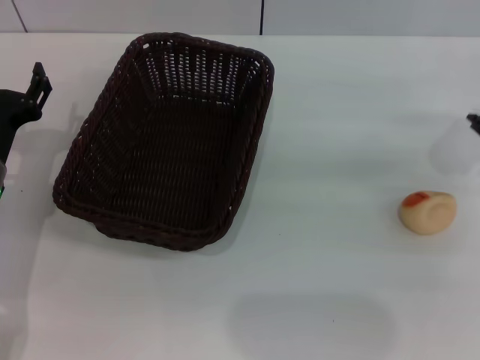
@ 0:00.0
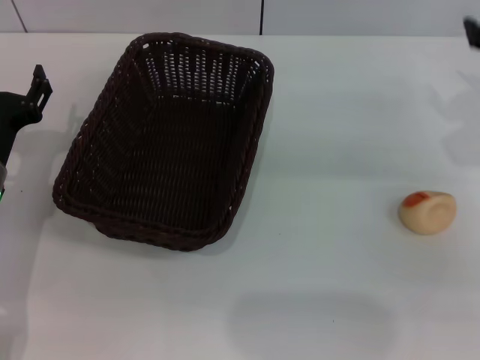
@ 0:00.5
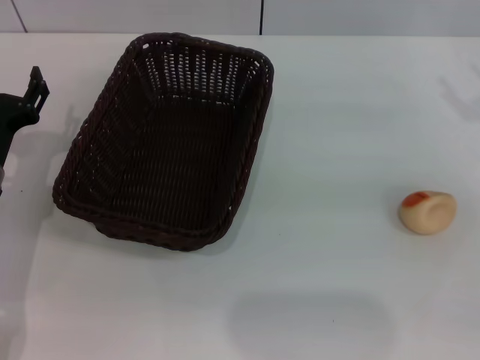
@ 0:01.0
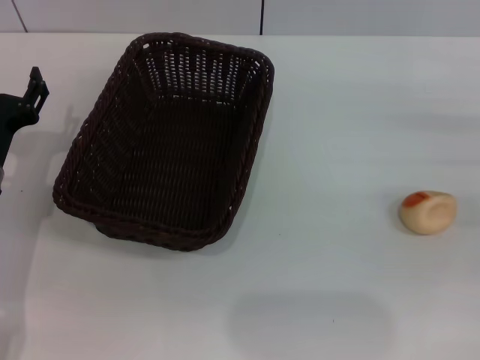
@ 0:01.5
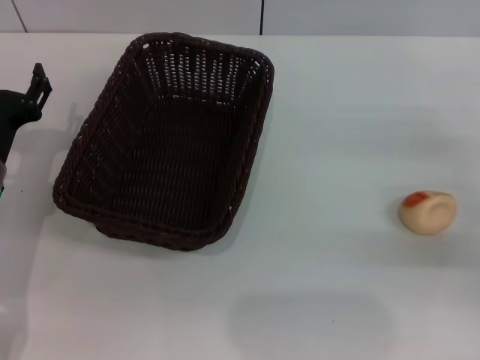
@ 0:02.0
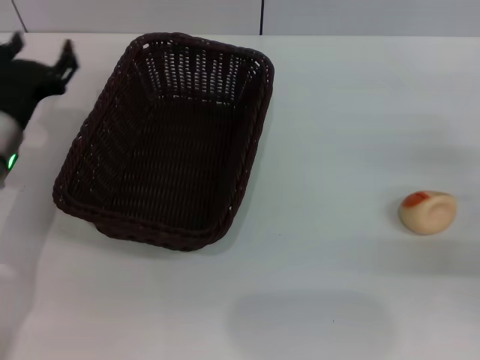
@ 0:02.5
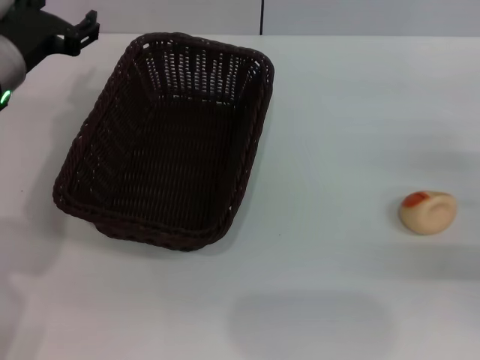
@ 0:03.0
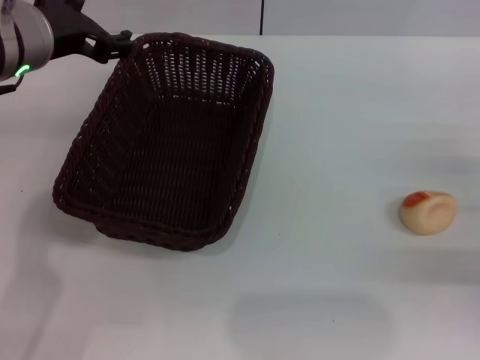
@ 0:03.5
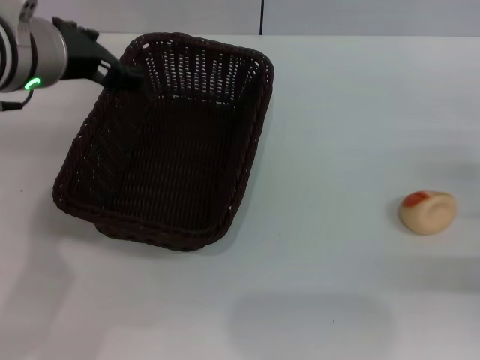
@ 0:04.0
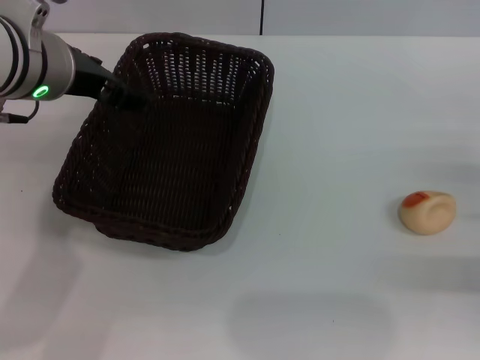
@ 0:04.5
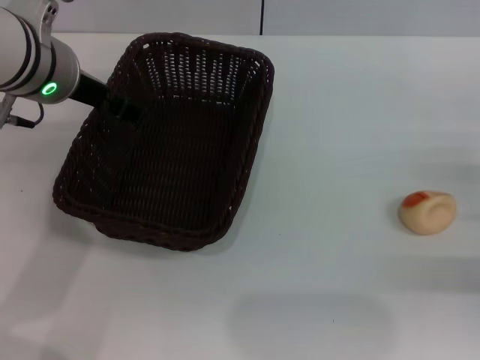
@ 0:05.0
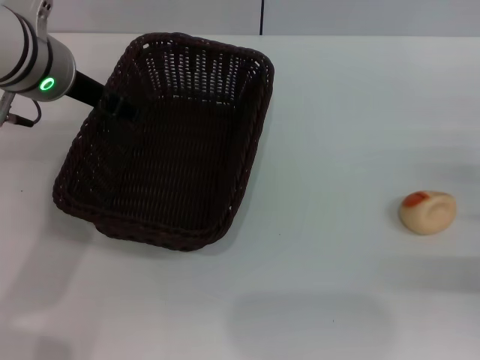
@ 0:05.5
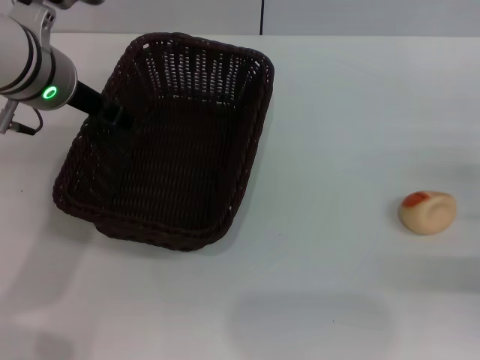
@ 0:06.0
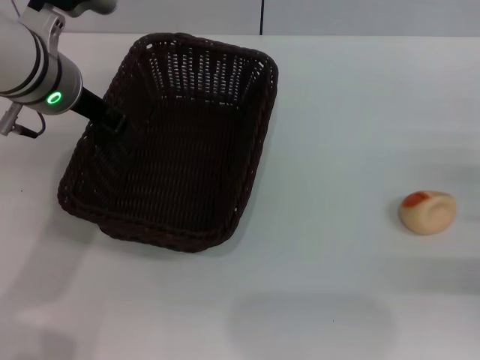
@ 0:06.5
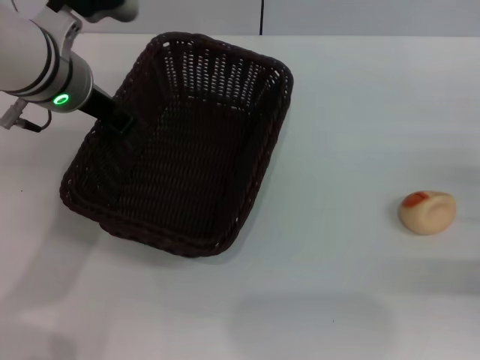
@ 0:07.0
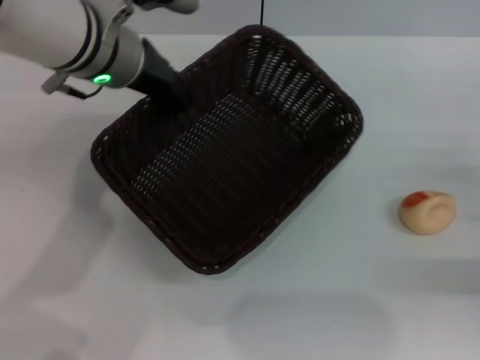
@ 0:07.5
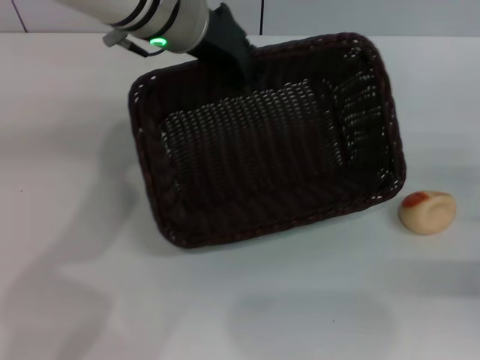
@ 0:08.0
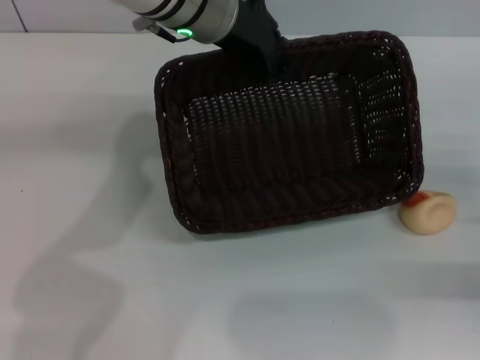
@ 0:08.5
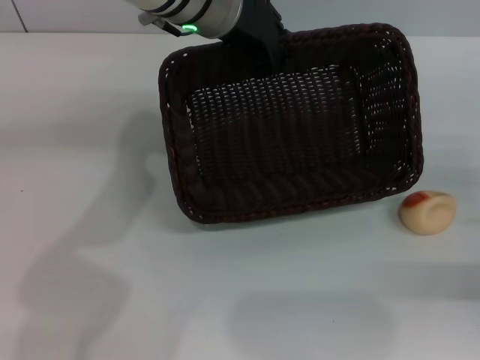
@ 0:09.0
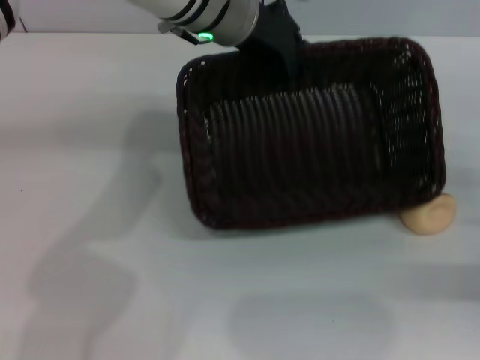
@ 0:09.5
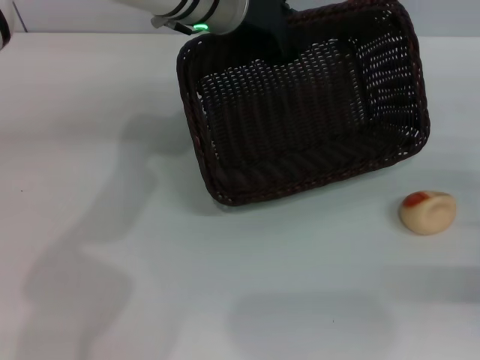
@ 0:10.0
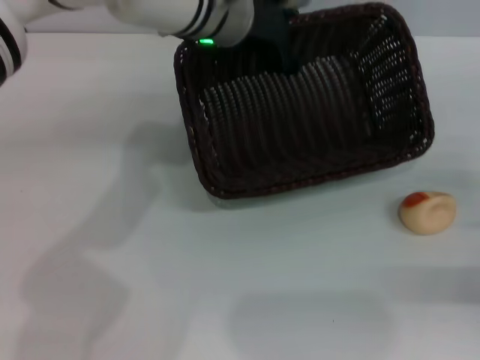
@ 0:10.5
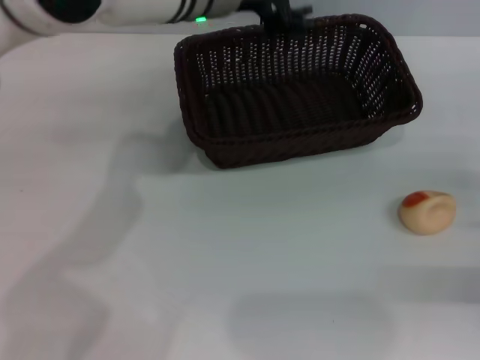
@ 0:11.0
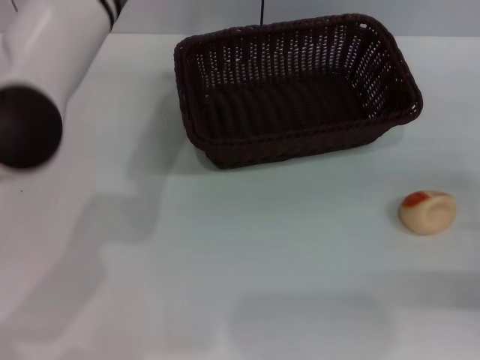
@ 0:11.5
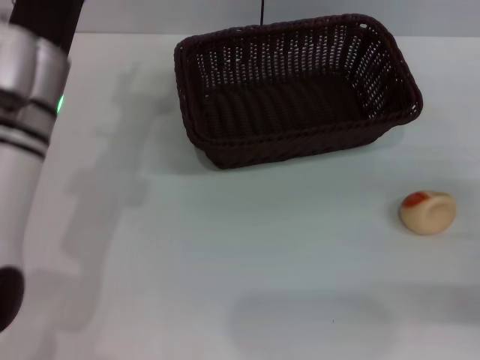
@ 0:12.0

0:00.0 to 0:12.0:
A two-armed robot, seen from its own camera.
Step, 0:00.0 to 0:11.0: Move the basket to the center of view with the left gripper.
0:00.0 to 0:02.0: The right gripper moves backward and downward, roughly 10 cm.
0:02.0 to 0:04.0: The left gripper is displaced upward and to the right by about 20 cm.
0:06.0 to 0:08.0: The left gripper goes about 10 cm to the right, and closes up.
0:10.0 to 0:12.0: The left gripper shifts approximately 20 cm to the left, backward and downward, and opens up.

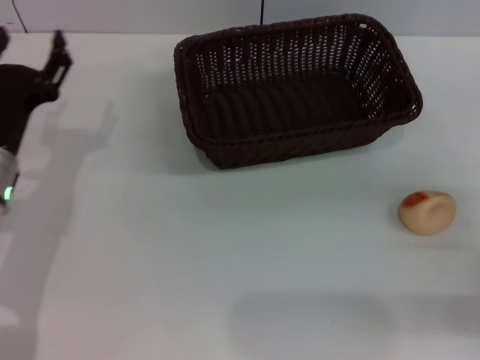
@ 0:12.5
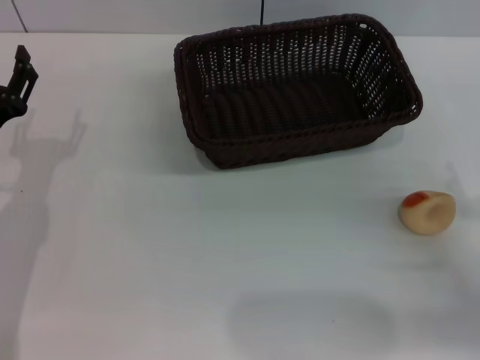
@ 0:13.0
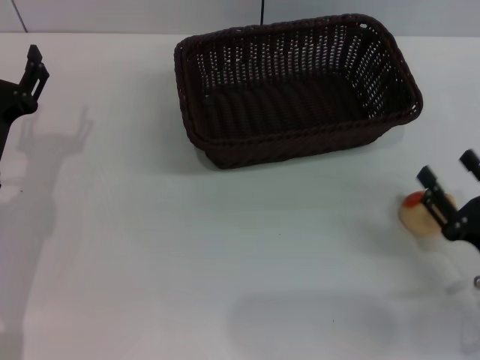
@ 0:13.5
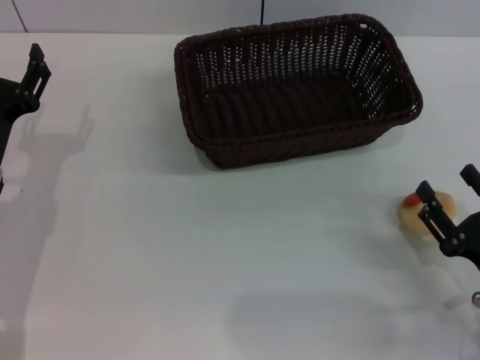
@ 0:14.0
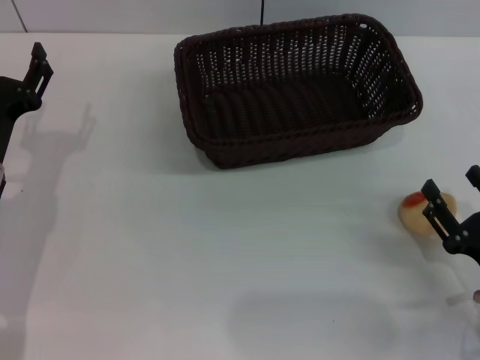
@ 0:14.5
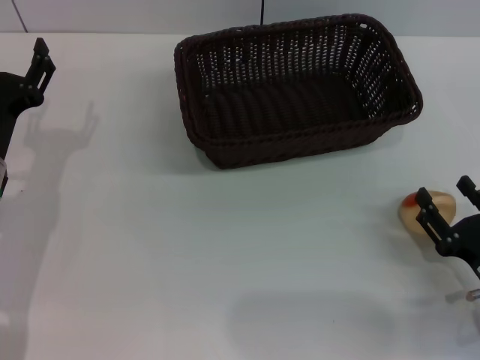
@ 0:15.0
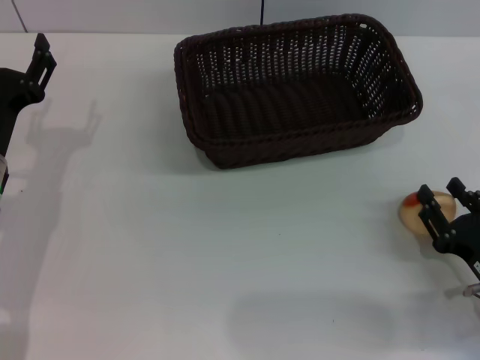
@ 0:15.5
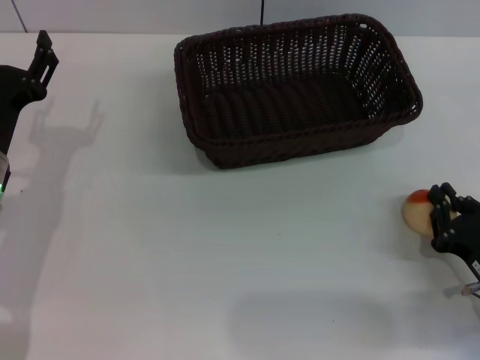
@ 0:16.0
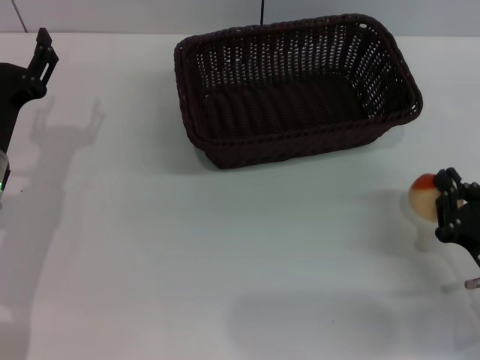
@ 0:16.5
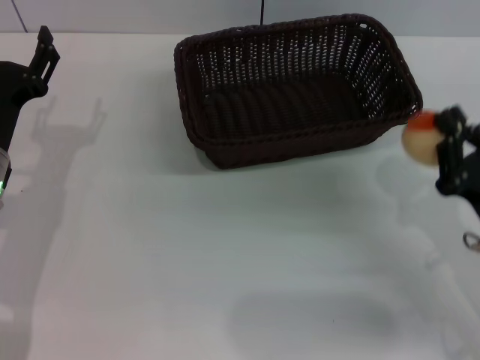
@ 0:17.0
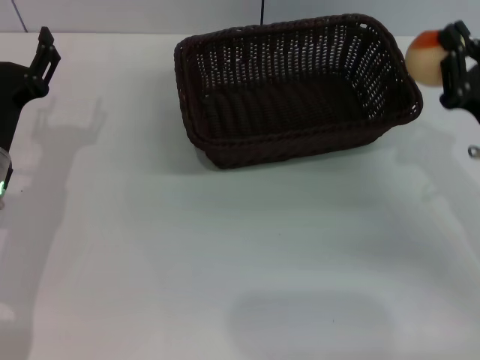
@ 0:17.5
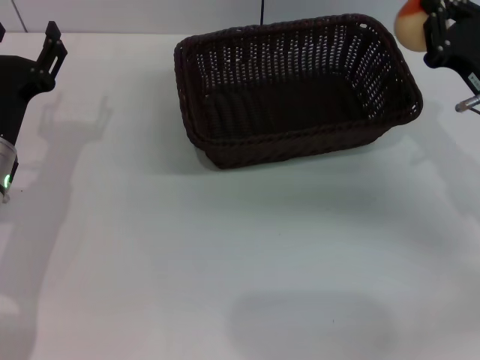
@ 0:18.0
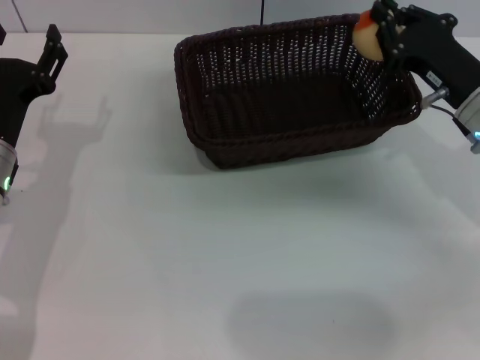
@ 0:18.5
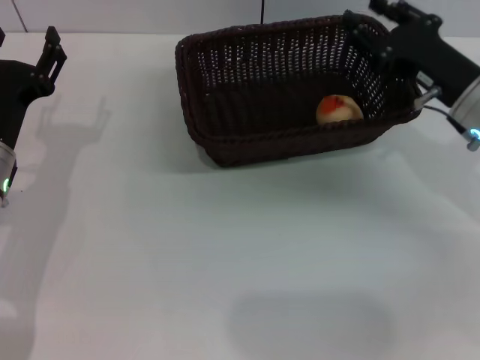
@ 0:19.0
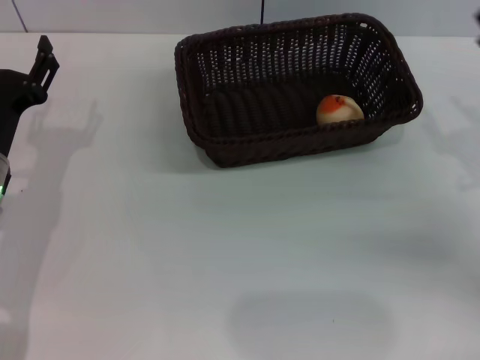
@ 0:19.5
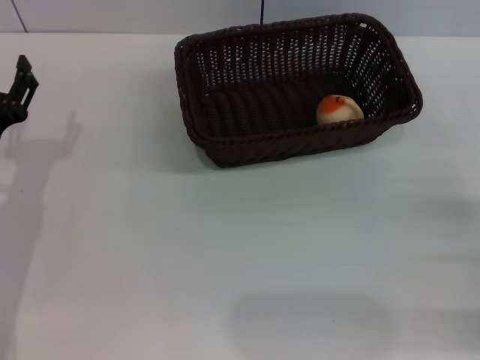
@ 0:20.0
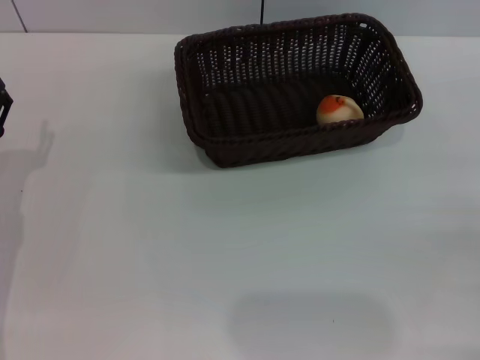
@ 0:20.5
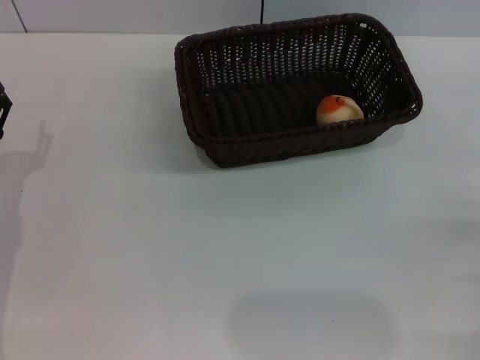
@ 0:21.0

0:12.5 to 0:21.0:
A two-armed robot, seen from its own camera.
Step, 0:12.5 to 0:16.5: Pick up the egg yolk pastry with the right gripper.
Step, 0:17.0 to 0:18.5: Place the egg yolk pastry into the basket with the right gripper.
0:12.5 to 0:14.5: The right gripper shifts roughly 5 cm to the left.
0:14.5 to 0:16.5: The right gripper closes up.
0:16.5 to 0:19.0: The right gripper is displaced forward and upward by roughly 20 cm, and opens its fingers.
0:19.0 to 0:21.0: The left gripper moves roughly 5 cm. Meanwhile the right gripper heads backward and to the right, covering about 20 cm, and opens up.

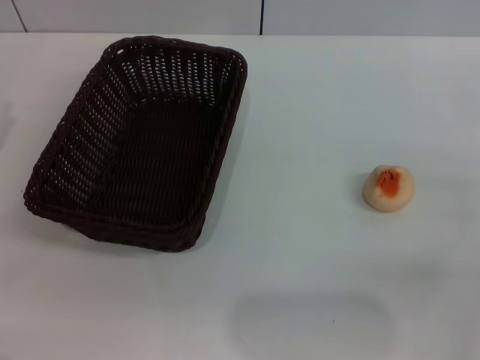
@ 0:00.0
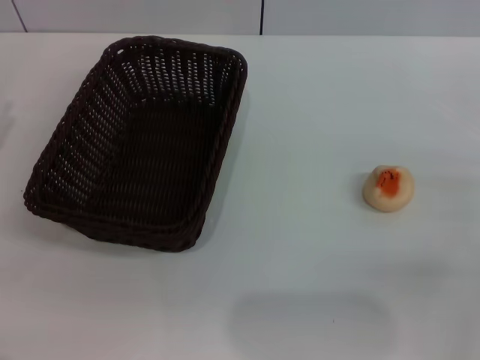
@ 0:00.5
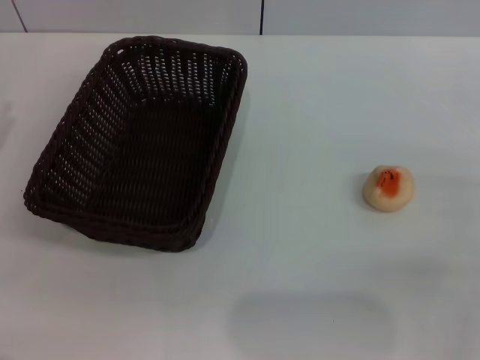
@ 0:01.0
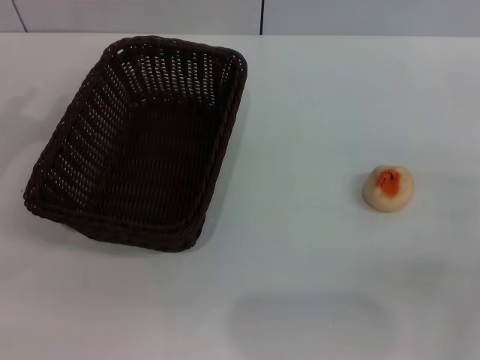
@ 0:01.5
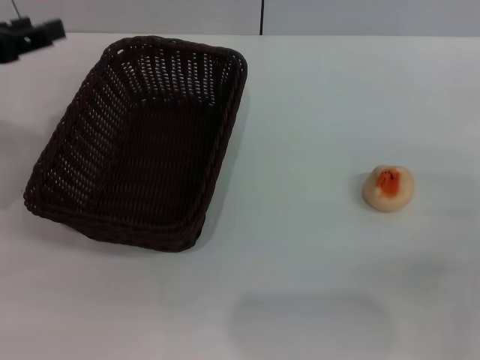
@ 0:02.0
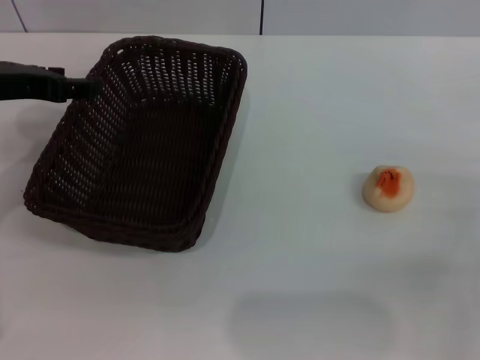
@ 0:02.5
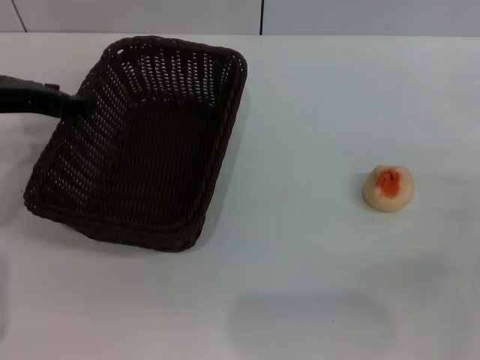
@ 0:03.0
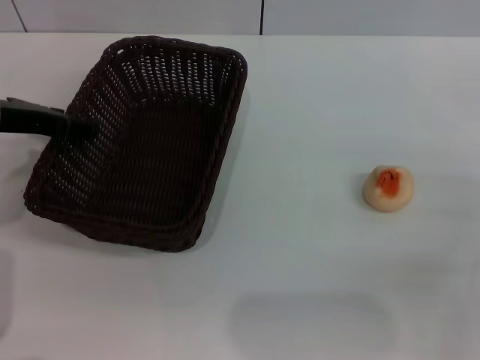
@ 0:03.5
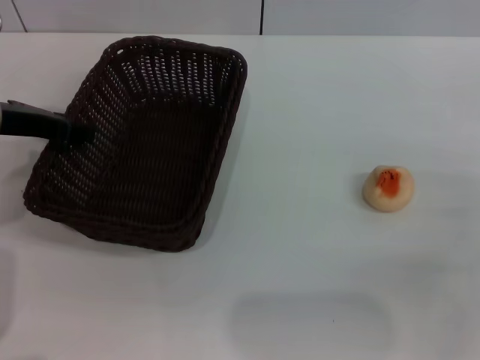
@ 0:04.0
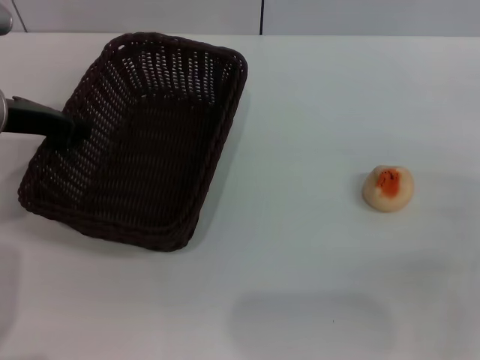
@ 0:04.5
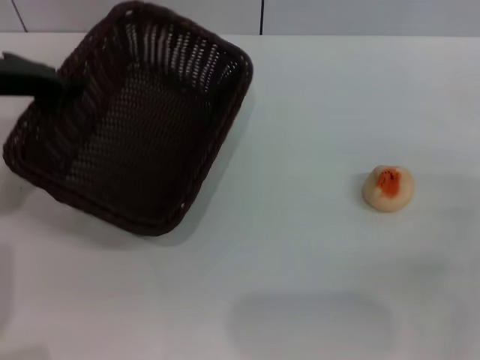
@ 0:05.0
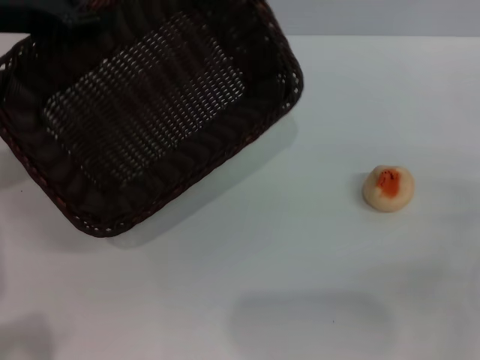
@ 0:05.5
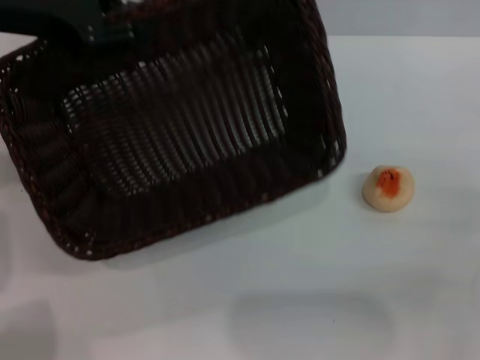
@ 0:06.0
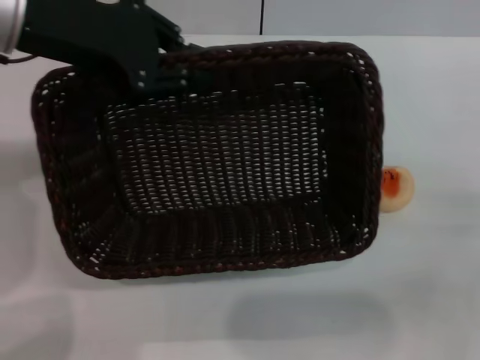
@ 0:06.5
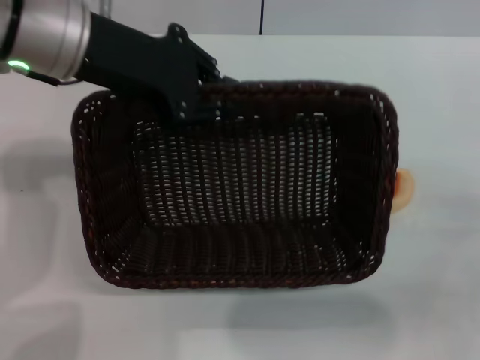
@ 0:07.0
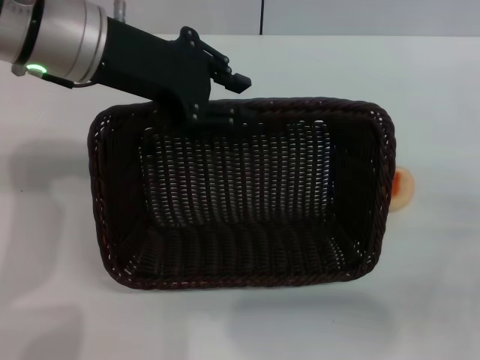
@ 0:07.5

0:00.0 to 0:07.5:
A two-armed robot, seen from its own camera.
0:00.0 to 0:02.0: The left gripper is displaced upward, to the right and forward by roughly 10 cm.
0:02.0 to 0:04.0: The left gripper ends up approximately 5 cm from where it was.
0:04.0 to 0:05.5: The left gripper moves upward, some 10 cm, and closes its fingers.
0:05.5 to 0:07.5: The left gripper heads to the right, covering approximately 10 cm.
